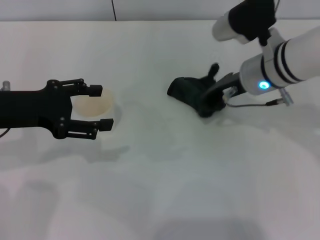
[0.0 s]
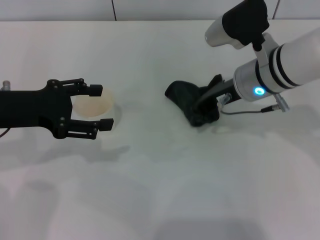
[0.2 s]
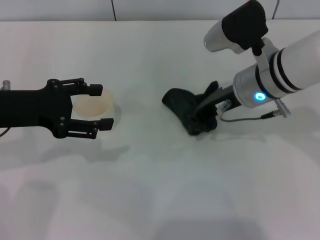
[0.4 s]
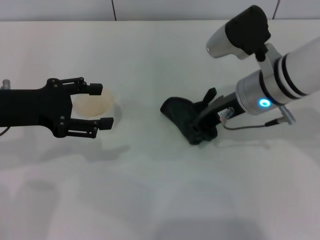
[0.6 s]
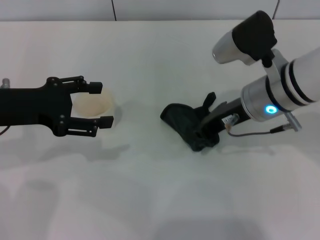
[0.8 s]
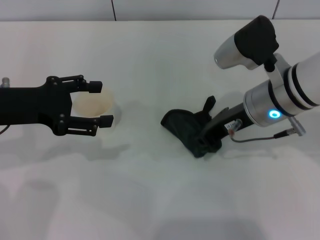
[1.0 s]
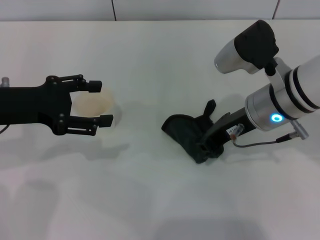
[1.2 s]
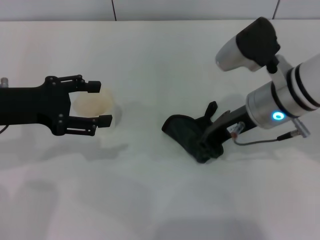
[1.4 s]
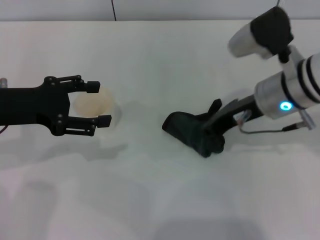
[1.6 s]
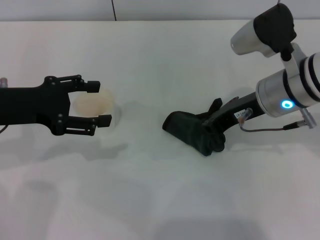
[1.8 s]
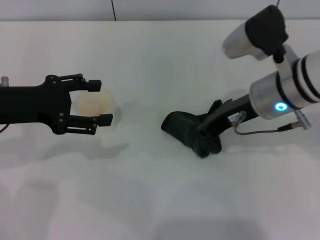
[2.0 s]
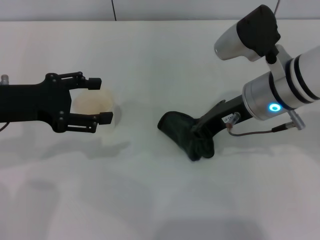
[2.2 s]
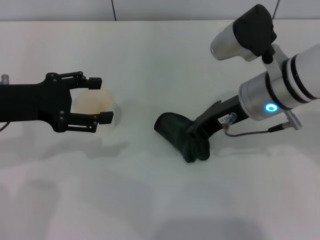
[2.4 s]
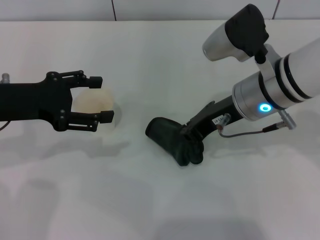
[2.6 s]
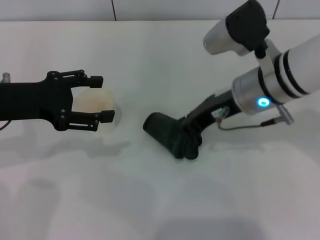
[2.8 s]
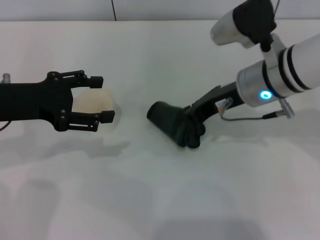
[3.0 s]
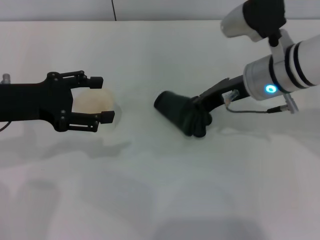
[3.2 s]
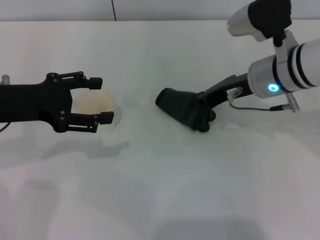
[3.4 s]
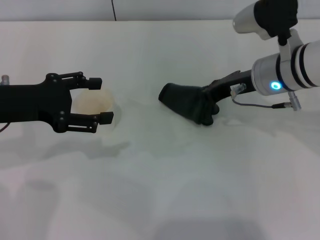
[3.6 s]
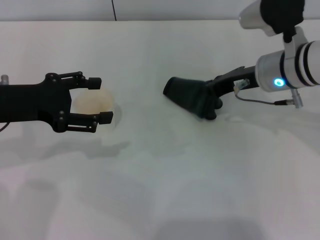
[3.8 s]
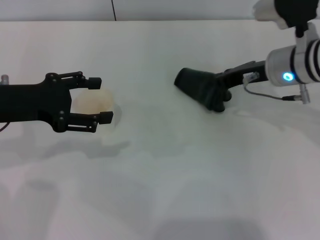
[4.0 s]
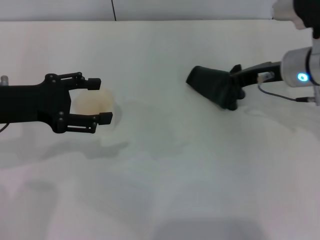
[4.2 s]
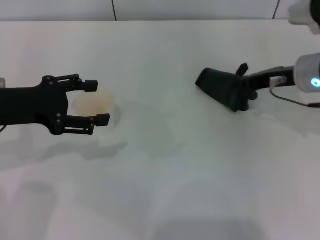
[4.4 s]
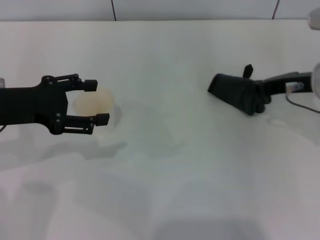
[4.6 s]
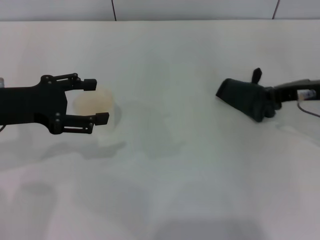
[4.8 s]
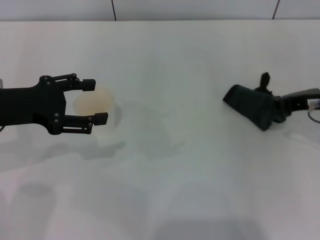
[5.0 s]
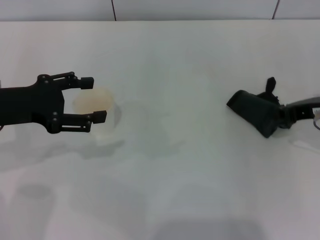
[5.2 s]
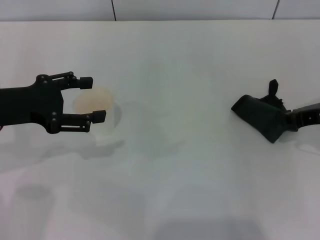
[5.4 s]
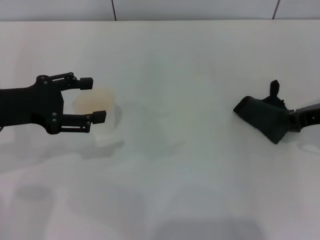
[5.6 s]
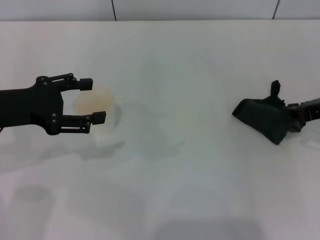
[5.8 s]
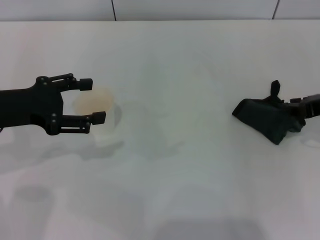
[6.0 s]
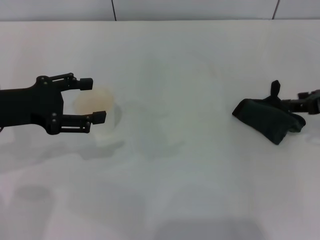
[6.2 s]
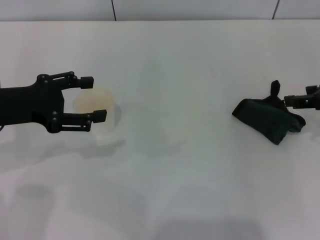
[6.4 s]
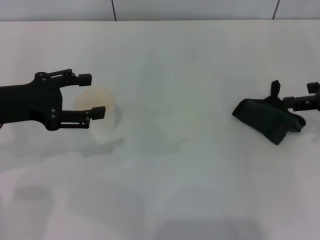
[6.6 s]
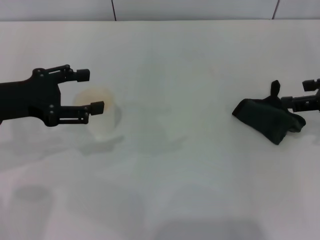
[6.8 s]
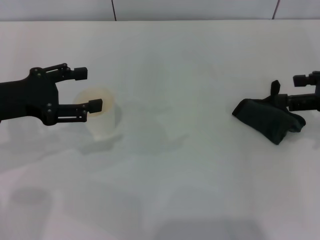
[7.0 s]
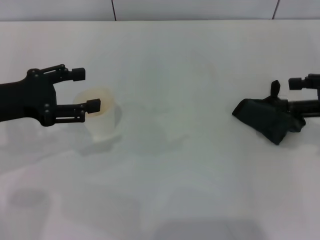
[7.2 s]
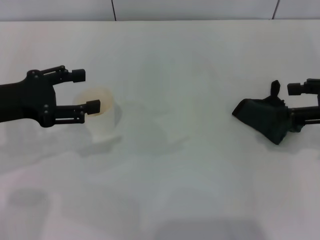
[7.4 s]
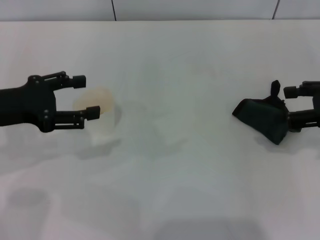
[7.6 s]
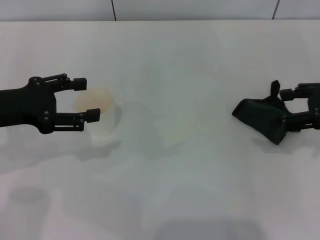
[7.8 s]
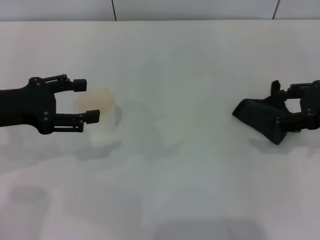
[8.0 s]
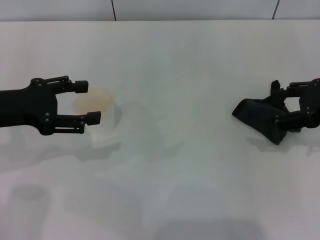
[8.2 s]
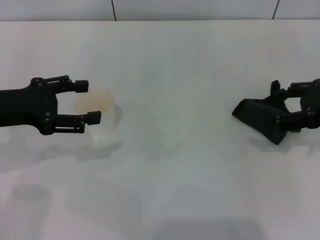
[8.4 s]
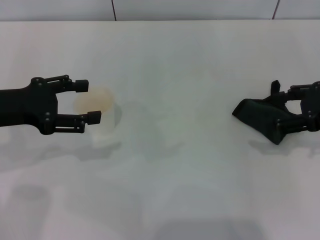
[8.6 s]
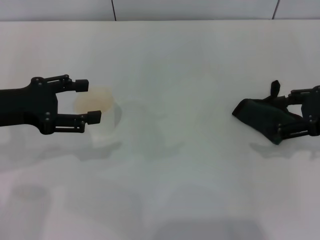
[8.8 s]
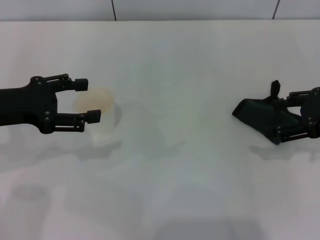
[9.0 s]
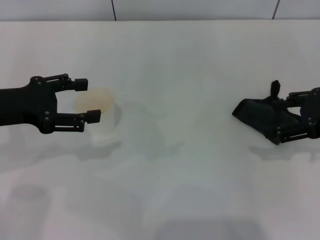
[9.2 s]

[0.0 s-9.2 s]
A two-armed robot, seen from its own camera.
Step, 0.0 to 3.4 s: Wipe the stains off the table with the right gripper.
Step, 3.6 to 6.8 s: Place the rag on the table with the right gripper.
0.0 to 3.0 s: The grippers stay close to where they were, moving slightly.
3.0 to 4.6 s: The right gripper is displaced to the right by approximately 10 cm.
4.6 to 6.2 s: The right gripper heads to the right, covering about 5 cm.
6.2 to 7.6 s: The right gripper opens its fingers.
7.6 to 9.2 s: The grippers move only a little.

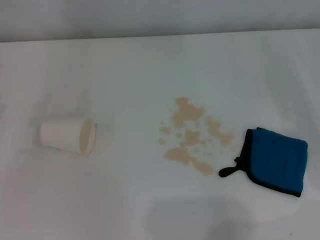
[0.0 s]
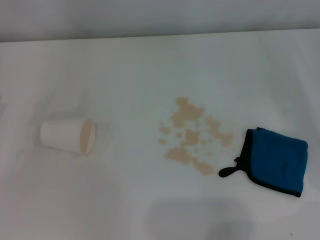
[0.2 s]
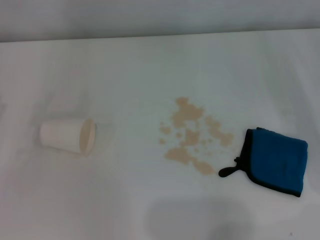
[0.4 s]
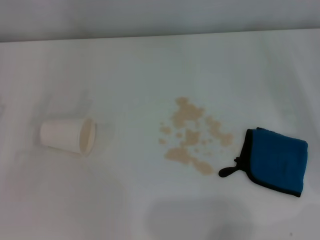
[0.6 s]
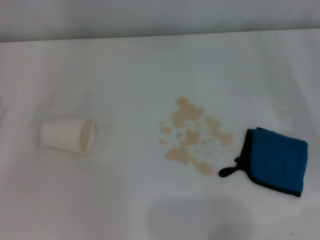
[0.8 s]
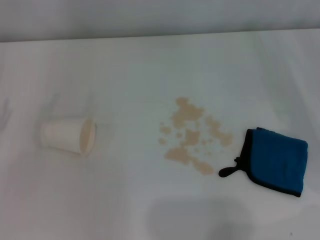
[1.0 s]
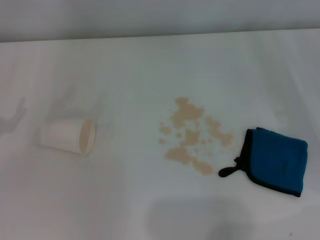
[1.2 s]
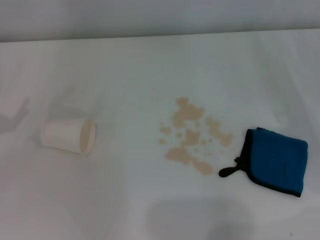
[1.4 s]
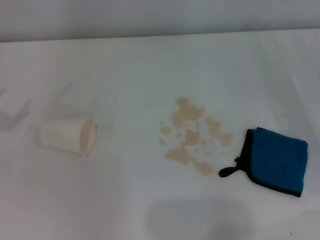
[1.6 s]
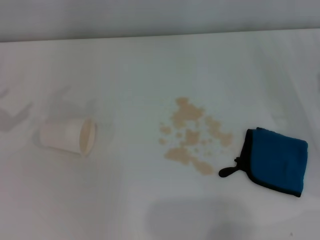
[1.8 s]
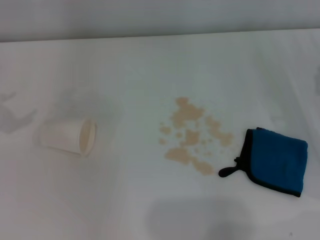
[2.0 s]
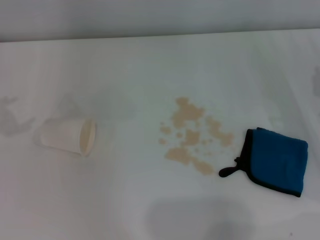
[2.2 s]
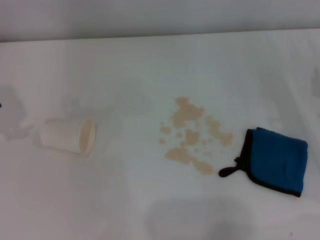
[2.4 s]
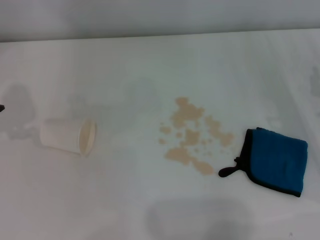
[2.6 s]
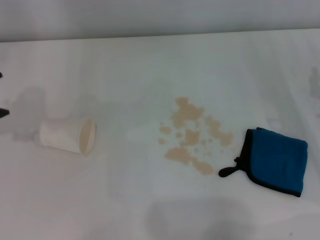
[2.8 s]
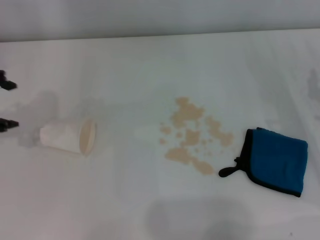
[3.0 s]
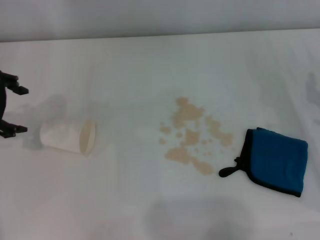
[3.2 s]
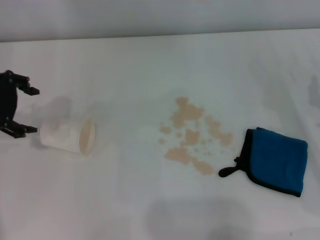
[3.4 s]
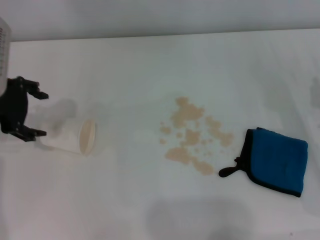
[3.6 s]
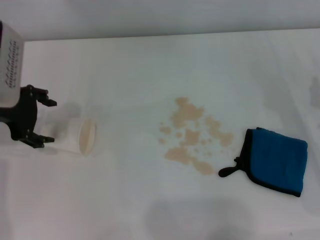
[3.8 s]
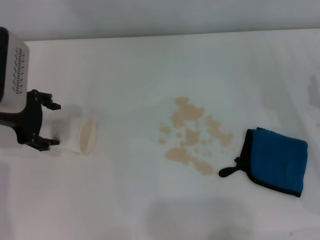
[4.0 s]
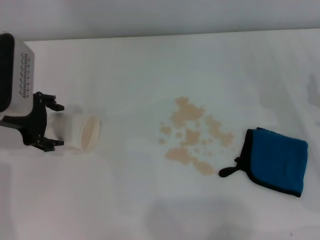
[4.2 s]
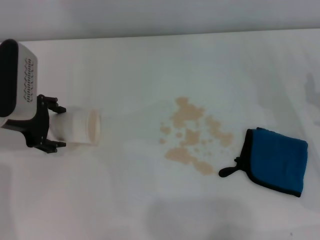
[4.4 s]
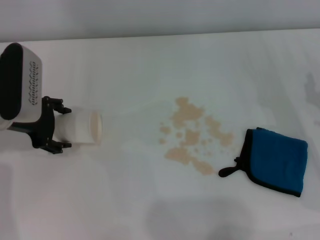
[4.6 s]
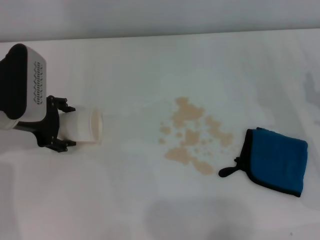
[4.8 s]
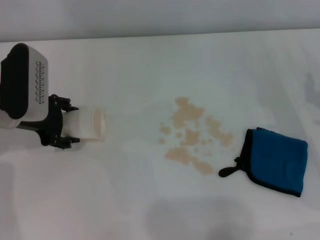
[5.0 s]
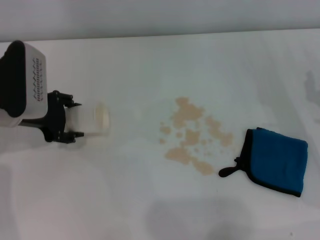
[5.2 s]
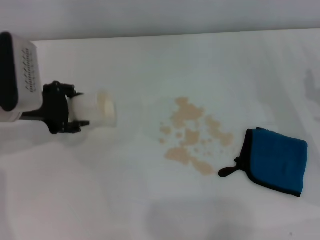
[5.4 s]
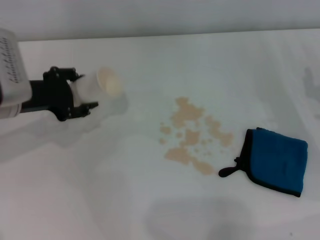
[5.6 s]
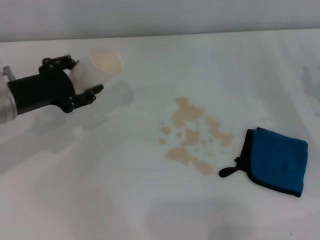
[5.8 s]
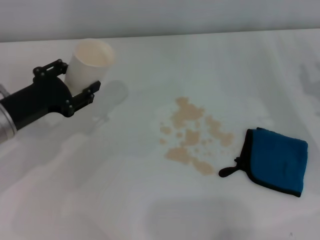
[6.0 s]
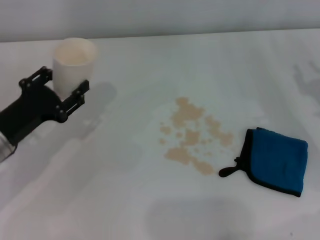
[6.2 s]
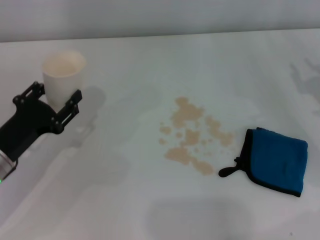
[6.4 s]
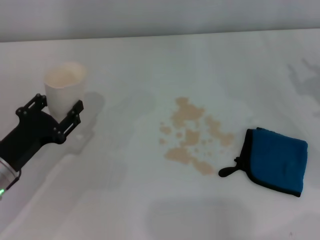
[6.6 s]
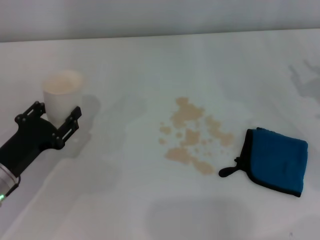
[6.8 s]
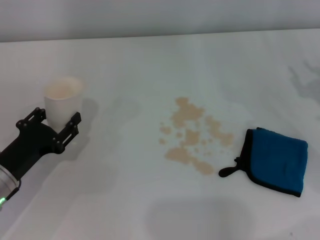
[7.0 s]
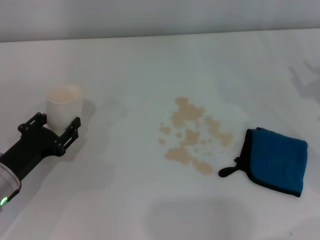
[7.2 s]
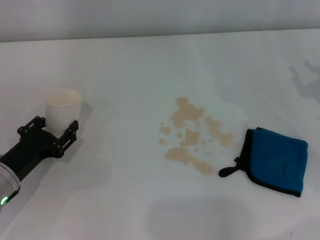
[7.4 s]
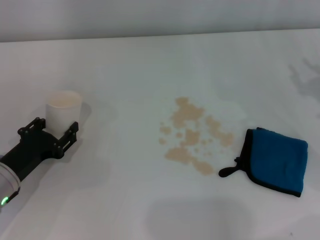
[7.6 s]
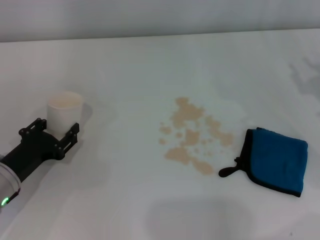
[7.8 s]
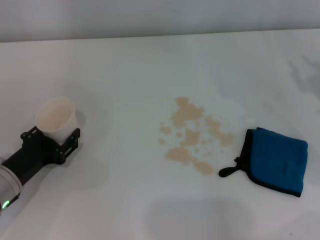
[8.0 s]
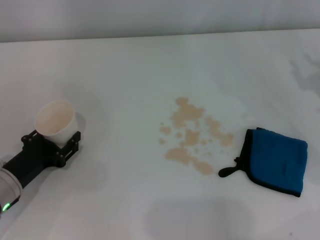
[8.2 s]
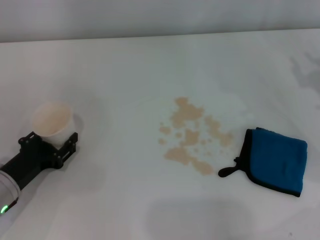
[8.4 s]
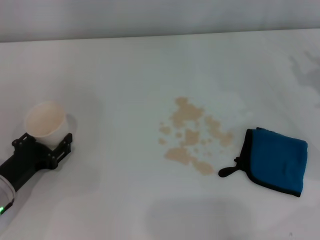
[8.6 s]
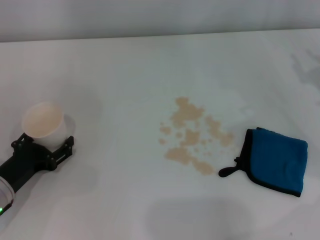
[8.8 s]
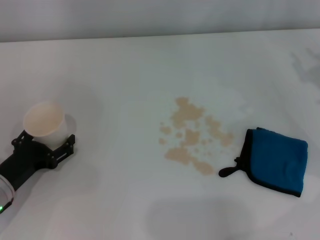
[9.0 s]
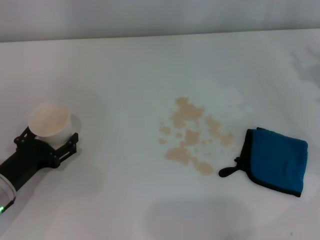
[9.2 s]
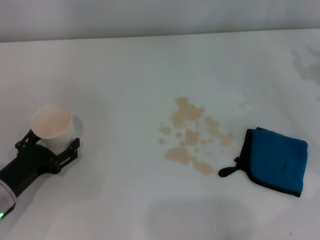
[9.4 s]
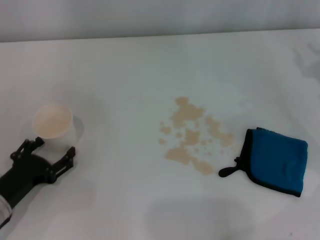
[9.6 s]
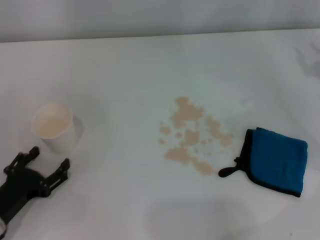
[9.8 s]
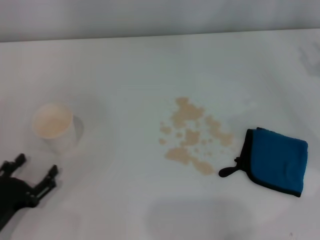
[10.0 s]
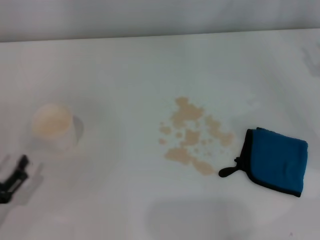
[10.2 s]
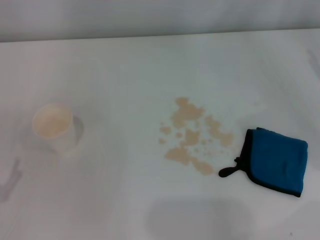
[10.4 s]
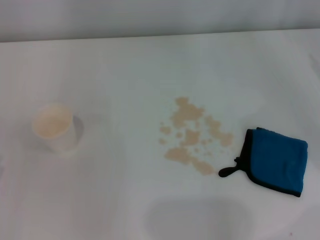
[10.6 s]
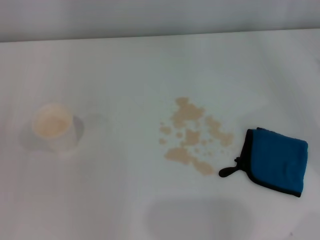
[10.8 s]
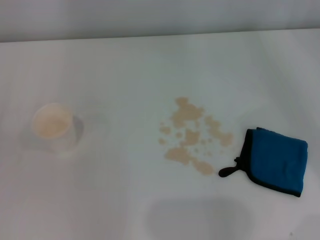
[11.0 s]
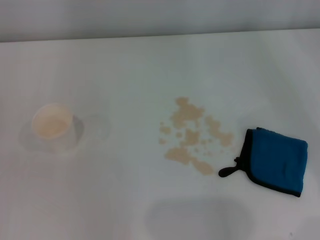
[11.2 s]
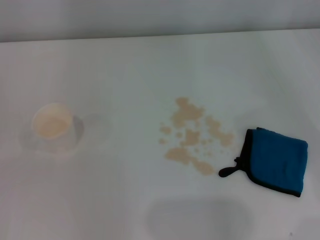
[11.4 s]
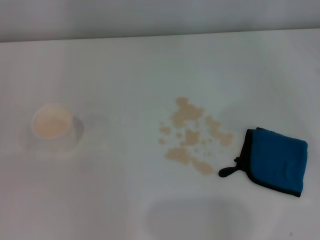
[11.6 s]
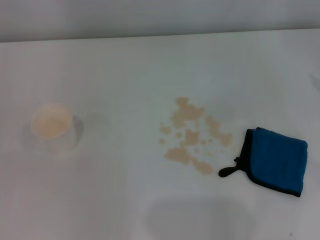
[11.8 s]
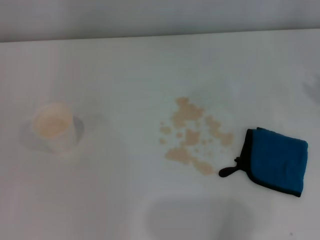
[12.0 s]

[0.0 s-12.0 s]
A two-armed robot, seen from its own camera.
Step, 0.0 to 4.8 s: Grasp the paper cup with the left gripper.
Step, 5.0 to 9.2 s: Stand the paper cup upright with the left gripper.
3.0 to 4.4 s: The left gripper goes about 10 cm downward.
4.4 to 6.0 s: The left gripper shifts by about 5 cm, and closes.
6.0 to 7.6 s: The left gripper travels downward and backward by about 10 cm.
7.6 to 9.0 s: The left gripper opens its fingers.
9.0 to 10.4 s: The left gripper goes approximately 10 cm backward and to the left, and opens up.

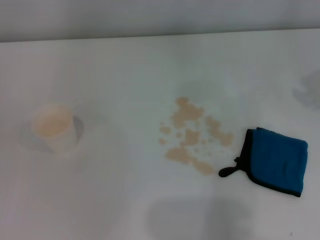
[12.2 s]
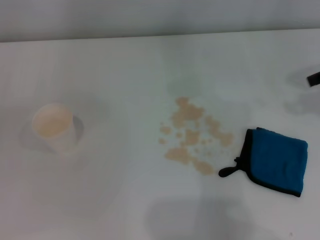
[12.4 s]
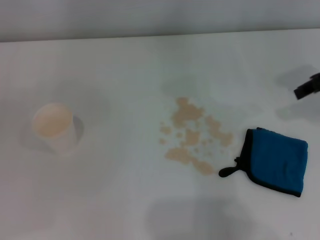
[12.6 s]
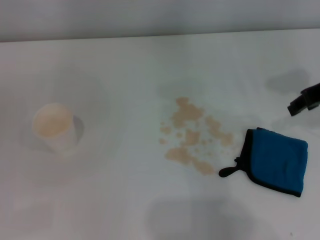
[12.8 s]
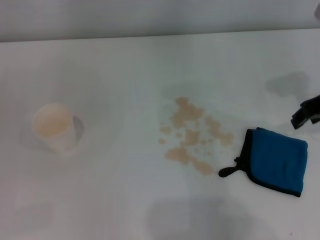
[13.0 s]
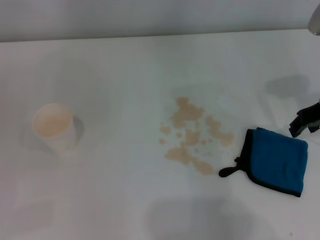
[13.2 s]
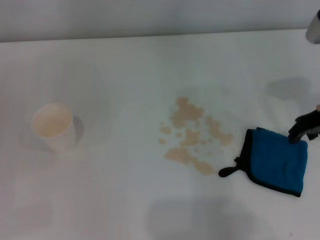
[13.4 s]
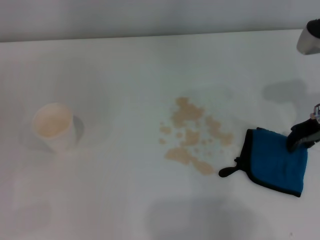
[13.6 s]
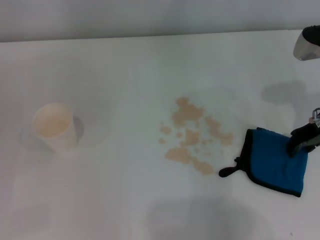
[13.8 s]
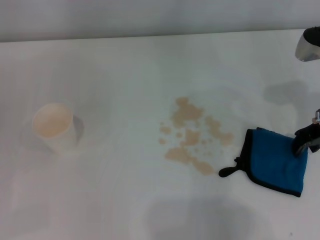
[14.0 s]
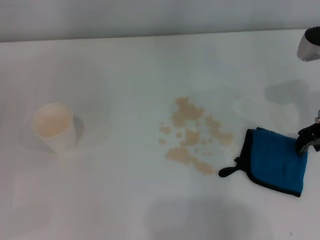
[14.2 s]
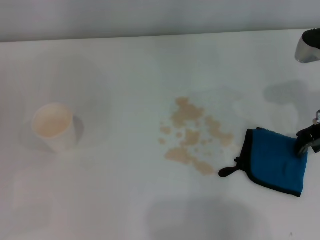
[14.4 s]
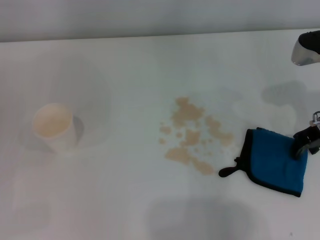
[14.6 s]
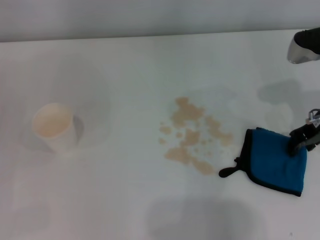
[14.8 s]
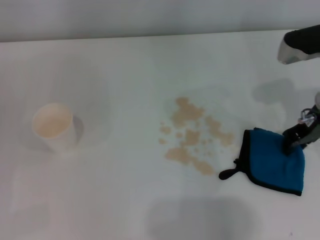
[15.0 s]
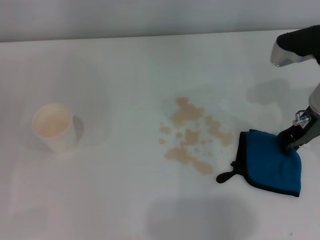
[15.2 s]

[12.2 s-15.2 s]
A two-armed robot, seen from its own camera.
12.2 to 13.8 s: The right gripper is displaced downward and to the left by about 10 cm.
13.8 to 15.2 s: There are only small adjustments of the grippers.
